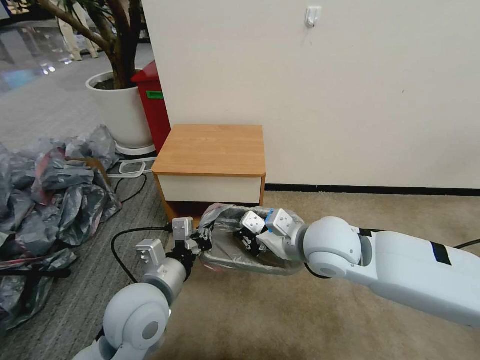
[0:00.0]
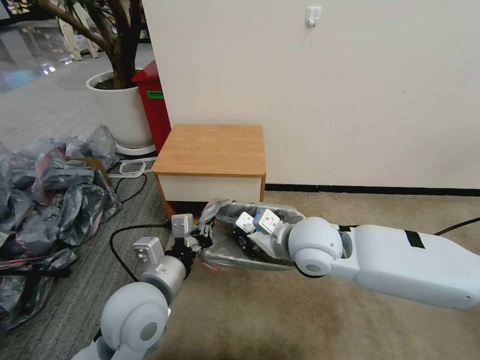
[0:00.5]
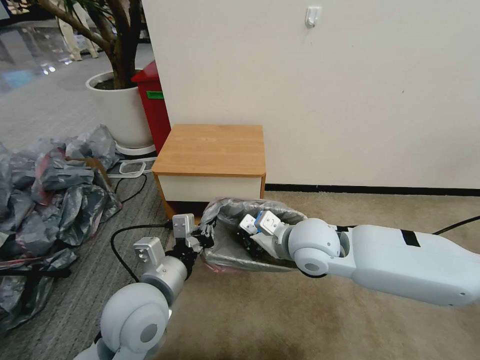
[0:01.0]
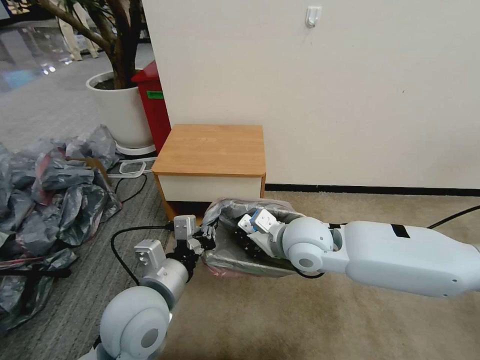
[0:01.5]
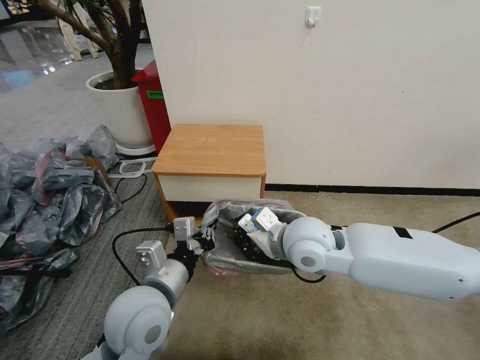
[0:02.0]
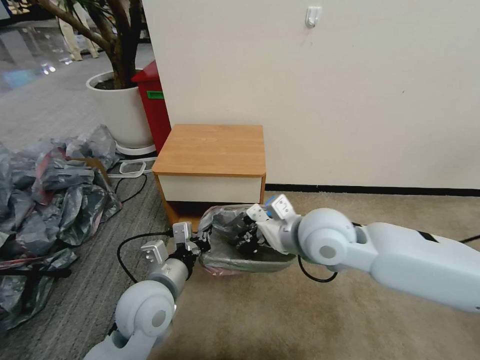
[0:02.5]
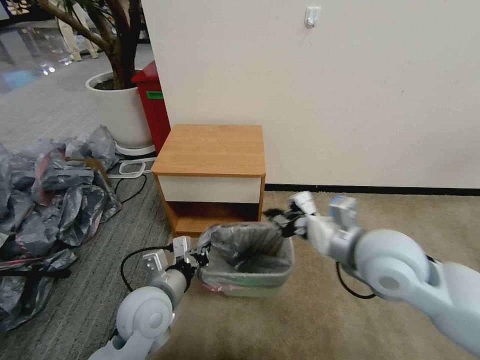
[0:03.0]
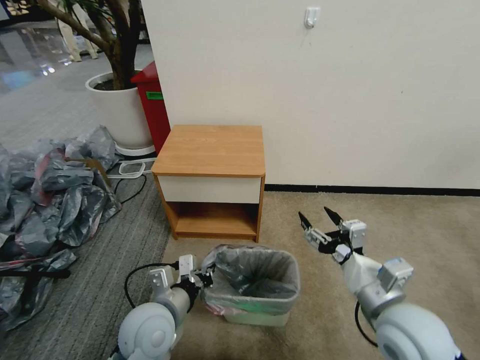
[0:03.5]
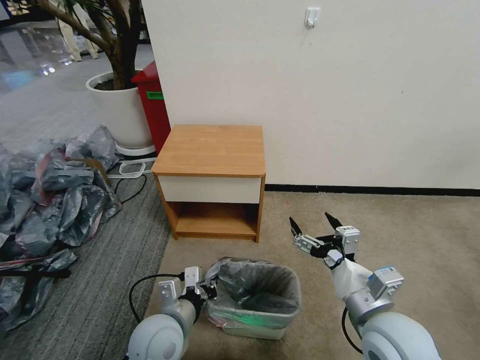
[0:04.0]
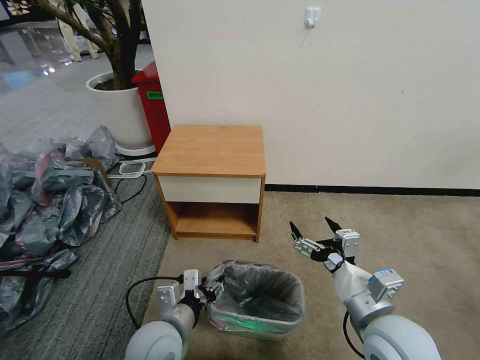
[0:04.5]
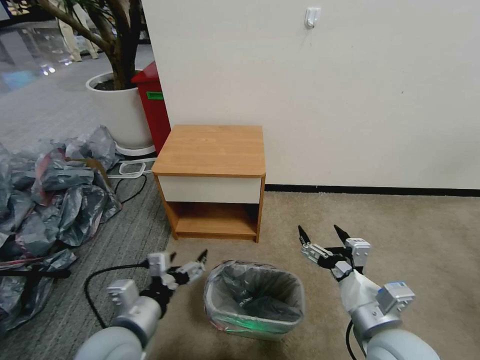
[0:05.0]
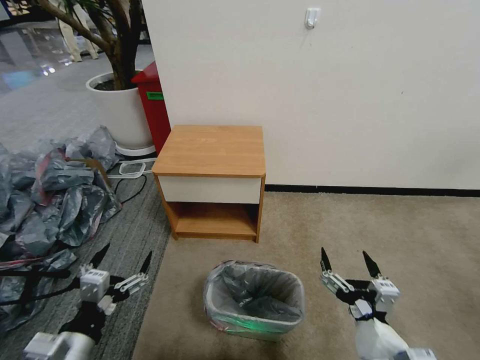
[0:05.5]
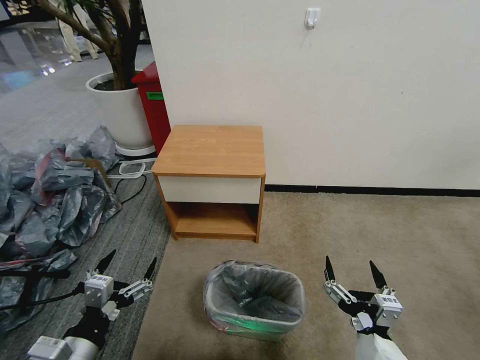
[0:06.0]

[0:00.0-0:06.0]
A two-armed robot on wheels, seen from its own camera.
Task of the whole recording: Pick up the garbage bag from the table and place it over the trash can.
0:00.0 to 0:02.0: There are only small adjustments of the grippers.
0:02.0 to 0:04.0: The left gripper is displaced downward by about 10 cm. The right gripper shifts approximately 20 cm backward, to the right and downward, and opens.
0:04.0 to 0:06.0: The right gripper heads backward and downward, covering some 15 cm; the left gripper heads to the left and backward, covering roughly 15 cm, and opens its fingers.

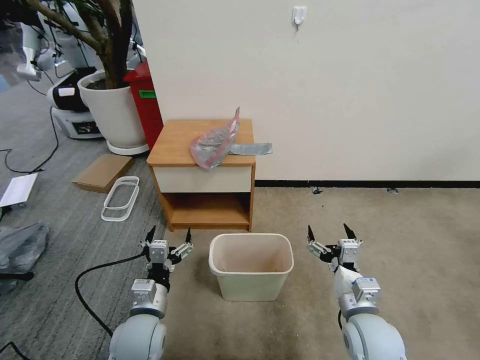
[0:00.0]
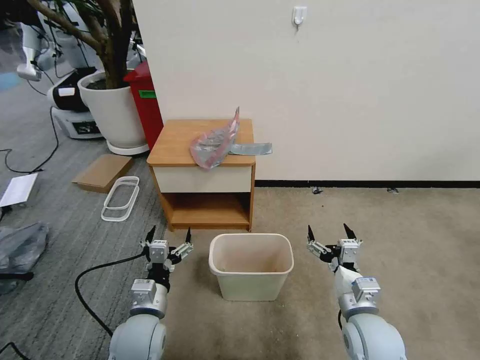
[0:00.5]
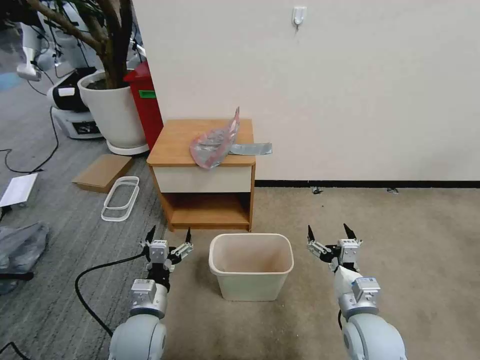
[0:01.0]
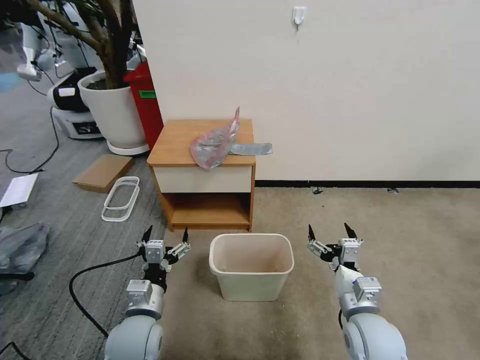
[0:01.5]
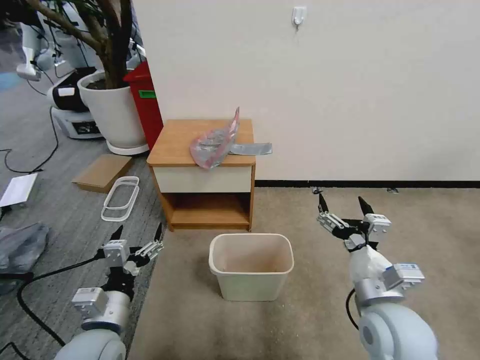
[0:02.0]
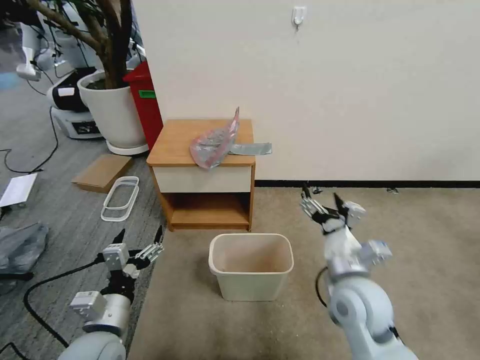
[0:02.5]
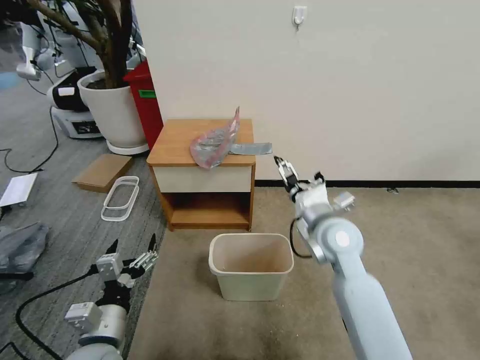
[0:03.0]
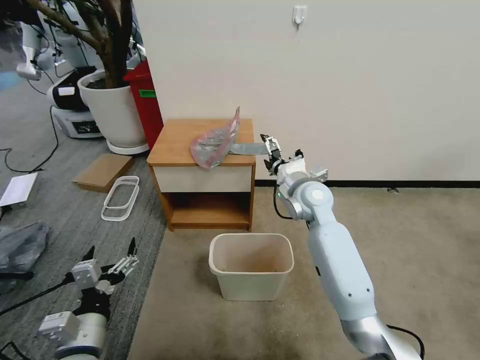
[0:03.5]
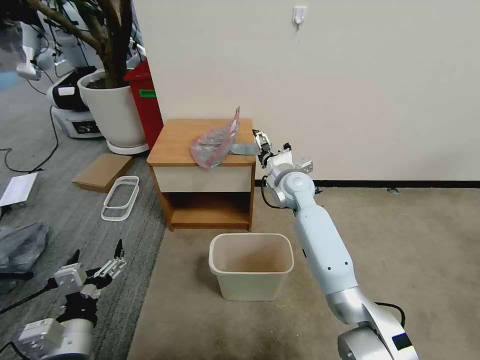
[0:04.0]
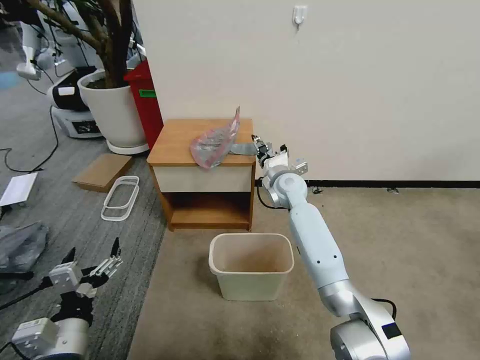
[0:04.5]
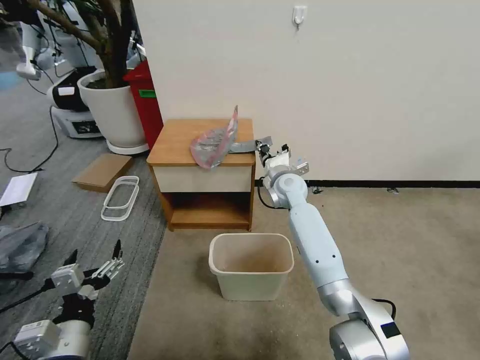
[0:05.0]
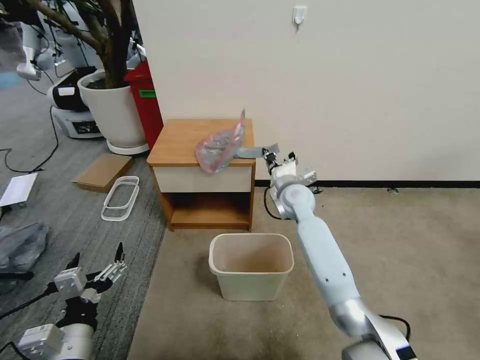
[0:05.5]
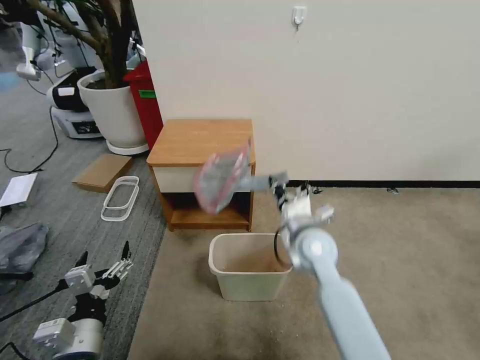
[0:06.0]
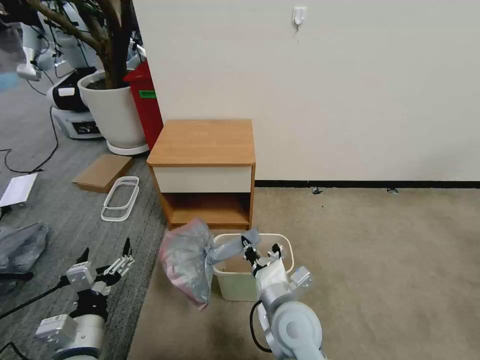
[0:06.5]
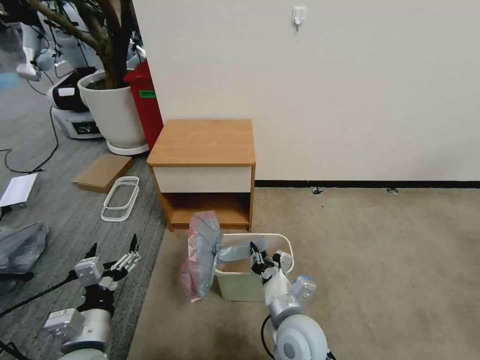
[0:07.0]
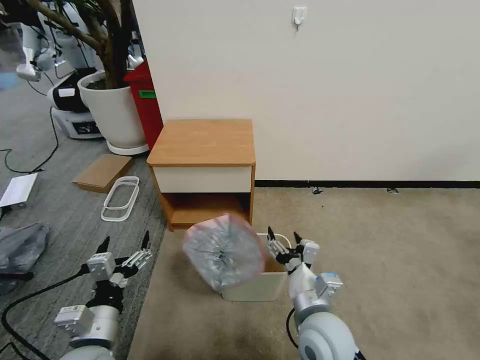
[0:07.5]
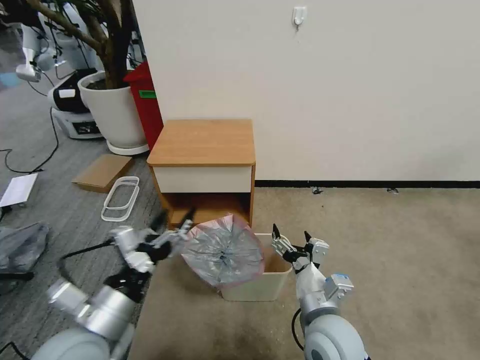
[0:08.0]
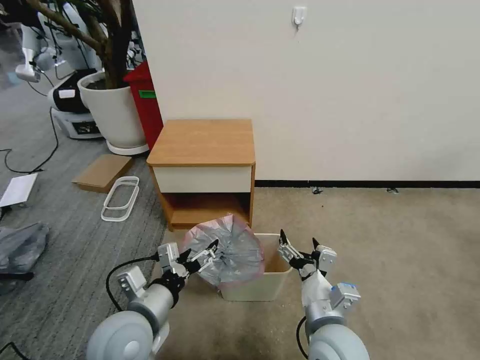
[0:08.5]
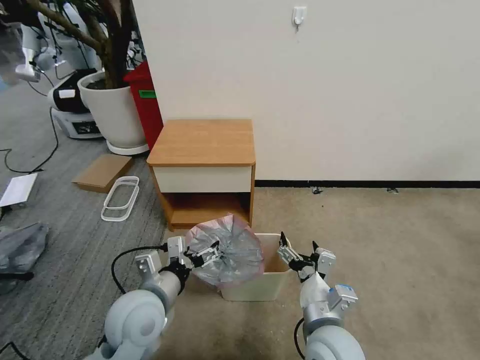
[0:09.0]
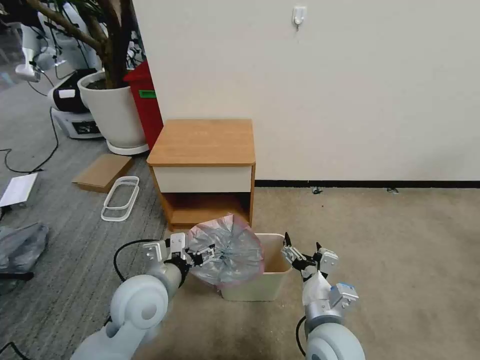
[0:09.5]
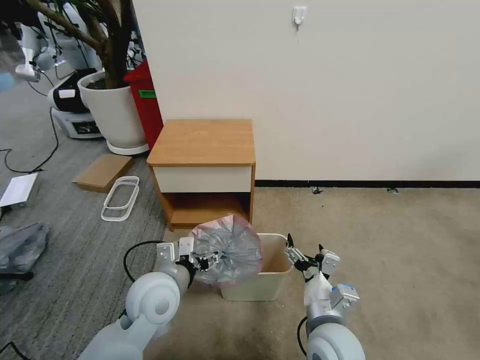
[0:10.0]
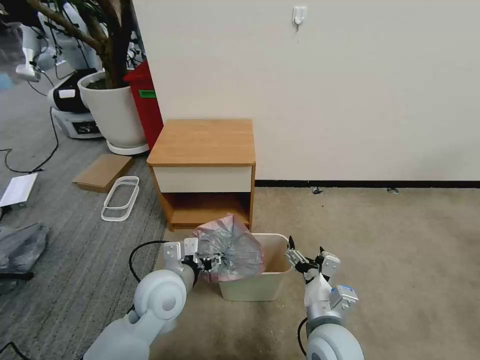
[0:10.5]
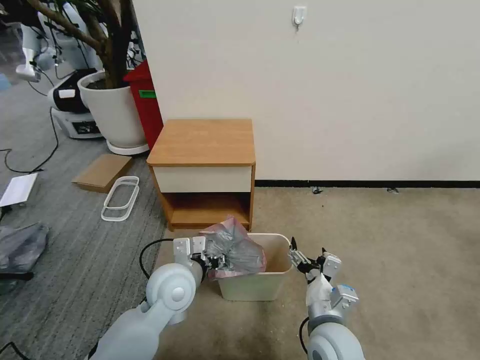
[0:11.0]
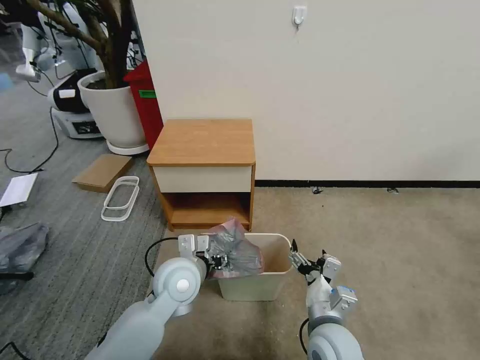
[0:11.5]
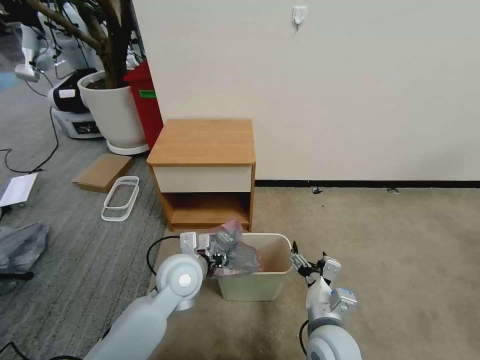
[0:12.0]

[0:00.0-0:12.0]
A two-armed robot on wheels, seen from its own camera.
Task of the whole recording: Pick up the garbage bag from the table and place it over the trash can.
0:02.0 to 0:04.0: The right gripper moves forward, roughly 35 cm, while the left gripper changes place by some 5 cm.
0:04.0 to 0:06.0: The right gripper moves backward, some 20 cm, and closes up.
0:06.0 to 0:08.0: The right gripper shifts approximately 15 cm backward, and opens up; the left gripper heads upward, covering some 10 cm.
0:08.0 to 0:10.0: The left gripper is displaced forward and to the right by roughly 15 cm.
0:10.0 to 0:12.0: The left gripper shifts by some 5 cm.

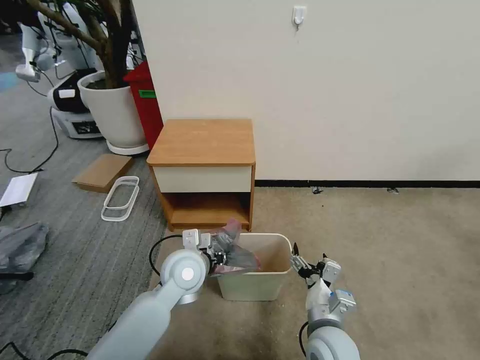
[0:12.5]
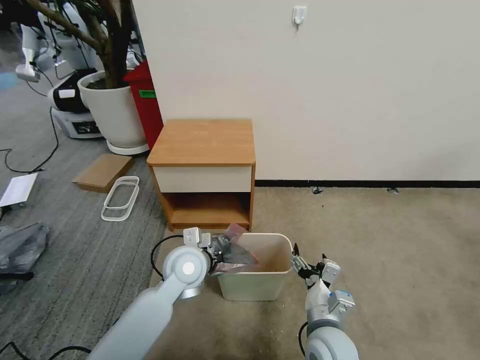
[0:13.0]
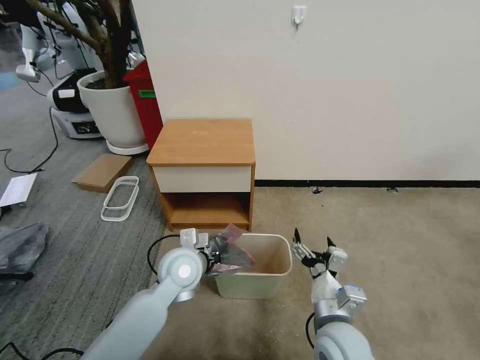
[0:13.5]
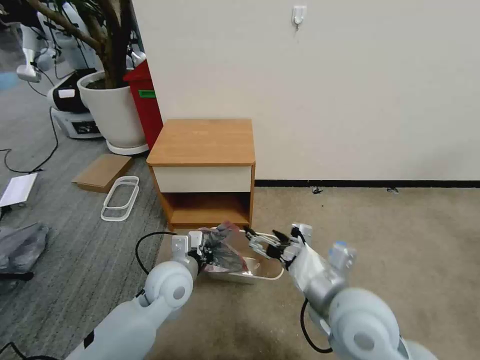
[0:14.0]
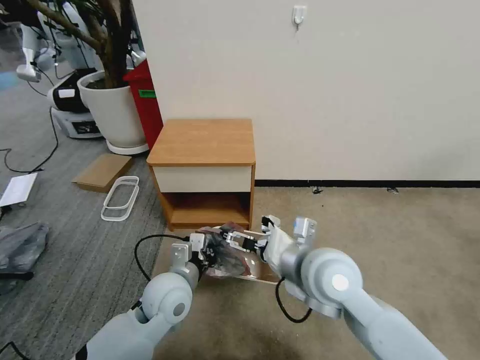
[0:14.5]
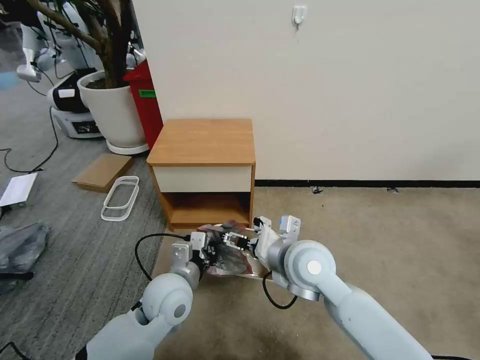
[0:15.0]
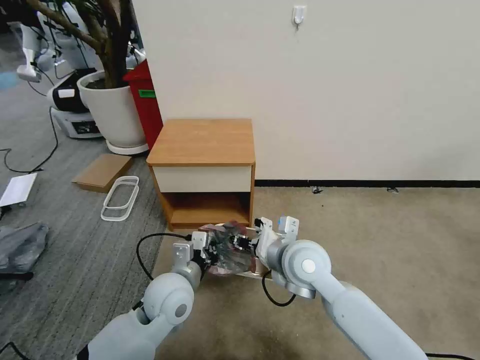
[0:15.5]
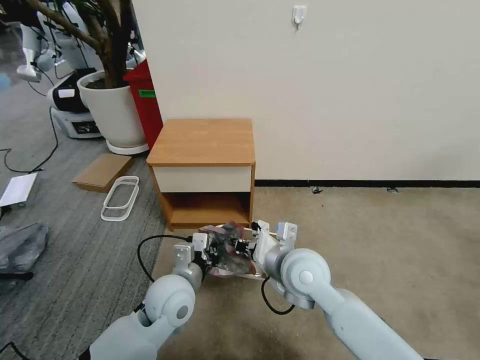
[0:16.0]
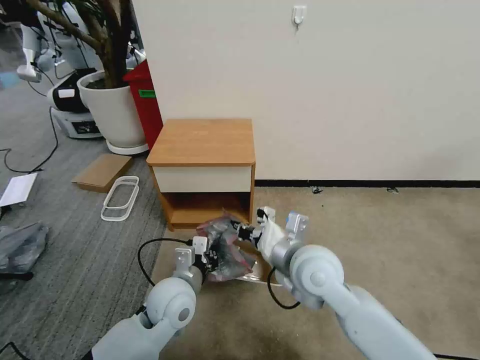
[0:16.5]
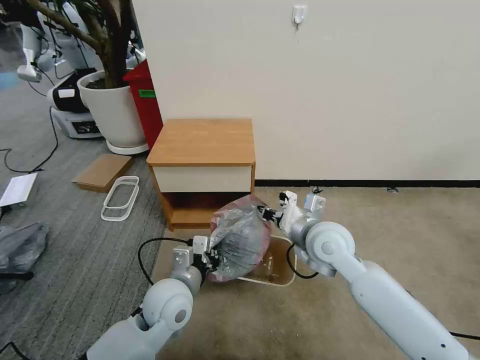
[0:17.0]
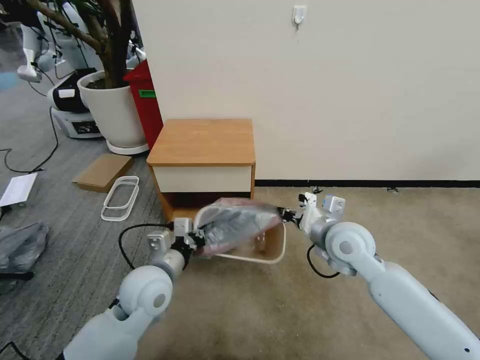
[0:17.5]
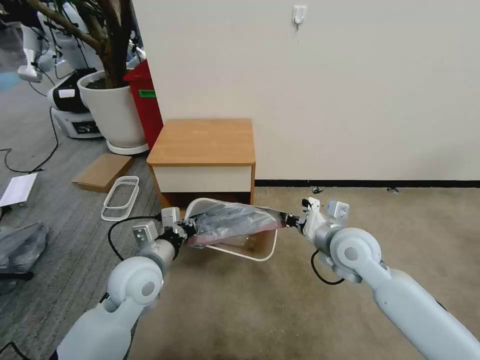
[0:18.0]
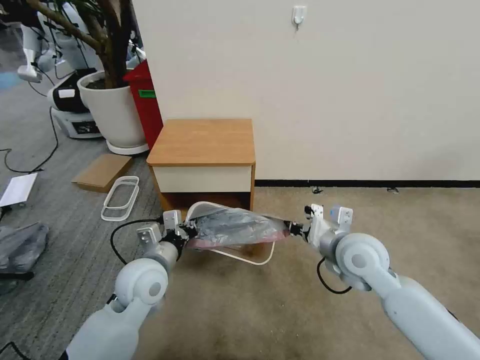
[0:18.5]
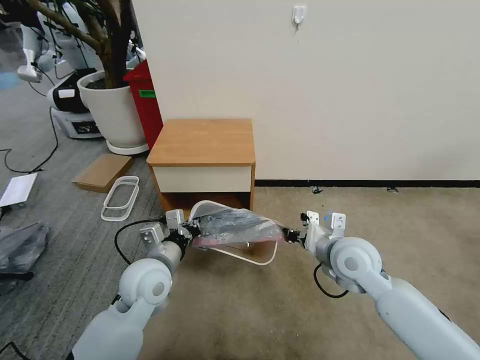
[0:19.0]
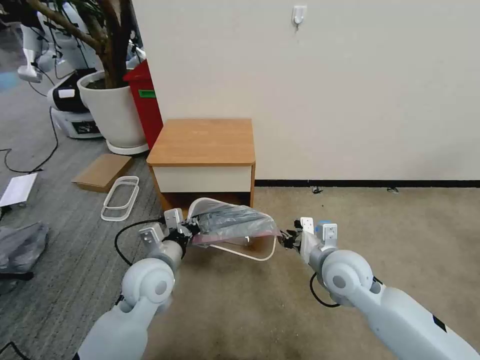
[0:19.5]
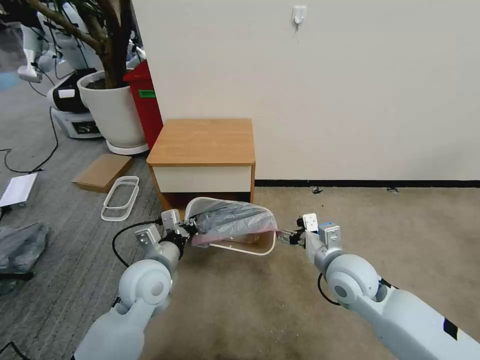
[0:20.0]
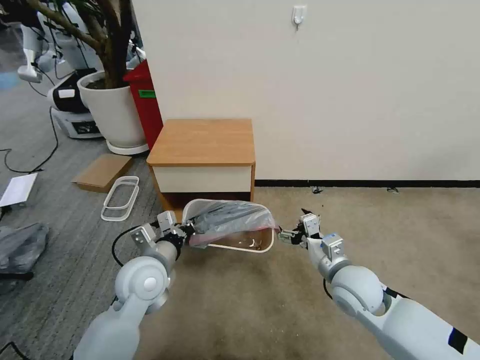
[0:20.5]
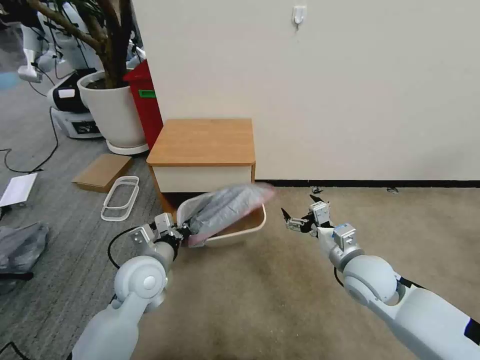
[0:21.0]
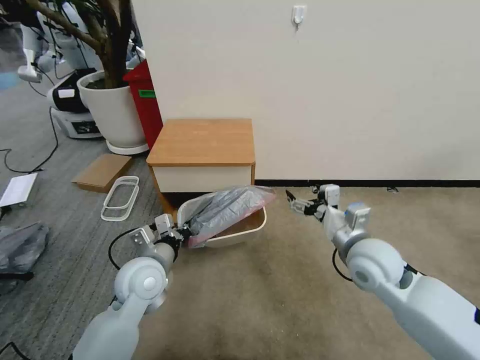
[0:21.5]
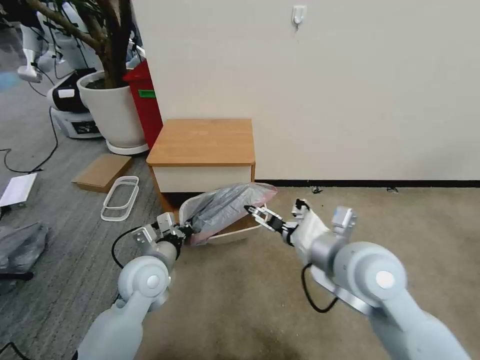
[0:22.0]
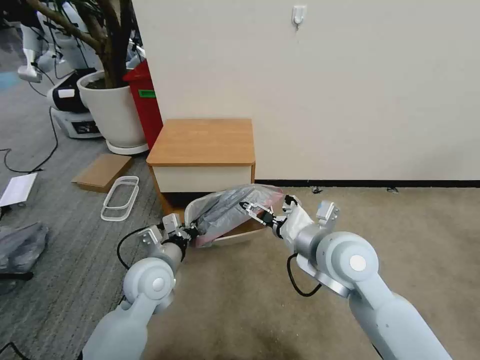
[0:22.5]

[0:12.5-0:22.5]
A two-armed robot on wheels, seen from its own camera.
Task of the whole recording: Pick up the garbage bag from the table and place it over the trash can.
0:12.5 to 0:14.5: The left gripper ends up roughly 5 cm from where it was, and closes its fingers, while the right gripper goes approximately 20 cm upward and forward.
0:14.5 to 0:16.5: The right gripper closes up.
0:16.5 to 0:18.5: The right gripper is displaced to the right by some 10 cm; the left gripper is displaced to the left by some 5 cm.
0:18.5 to 0:20.5: The right gripper goes approximately 10 cm downward, and opens.
0:20.5 to 0:22.5: The right gripper goes approximately 15 cm upward and to the left.
